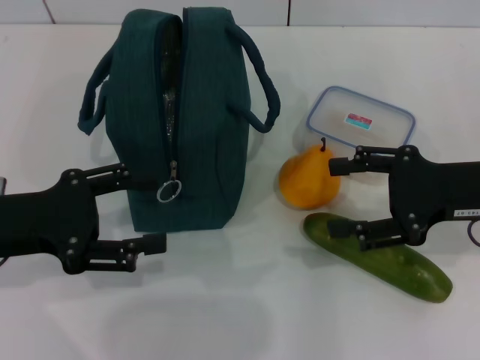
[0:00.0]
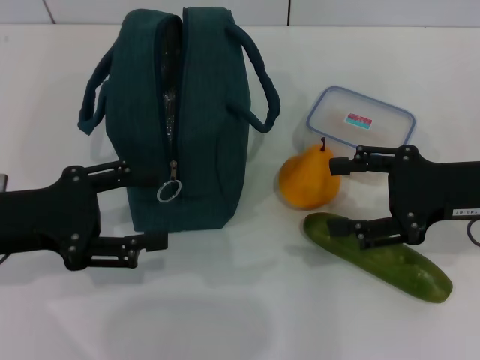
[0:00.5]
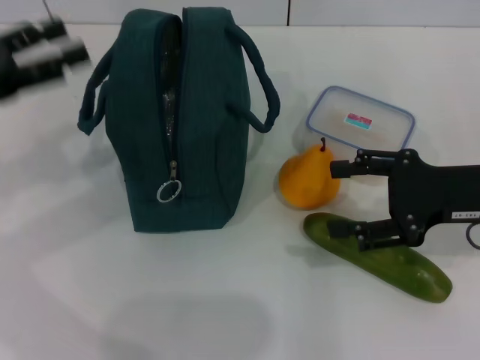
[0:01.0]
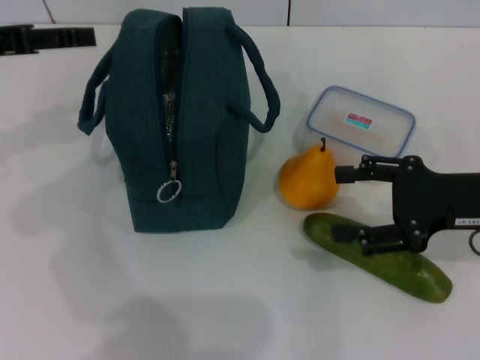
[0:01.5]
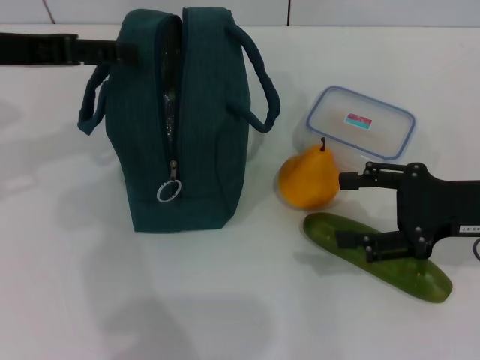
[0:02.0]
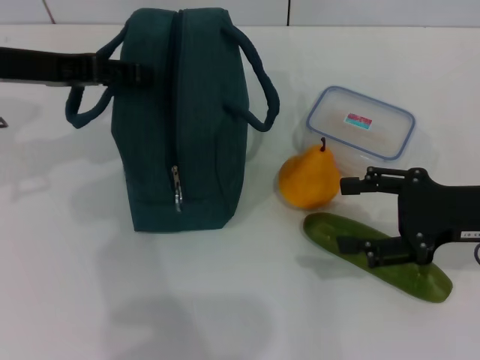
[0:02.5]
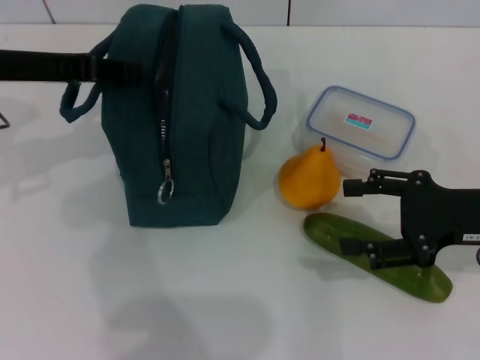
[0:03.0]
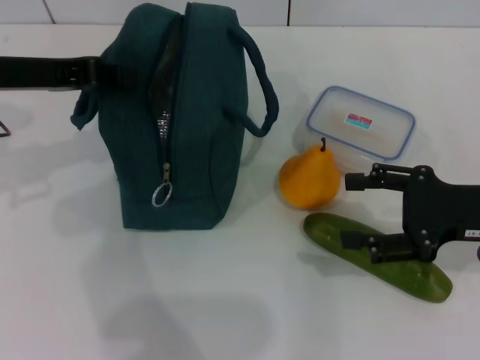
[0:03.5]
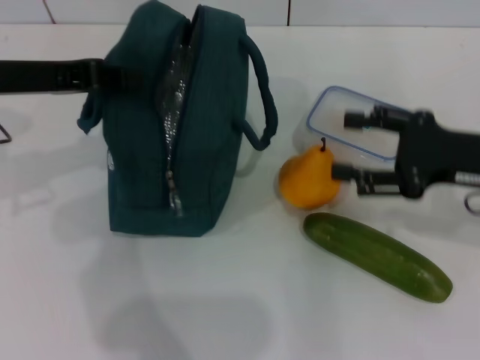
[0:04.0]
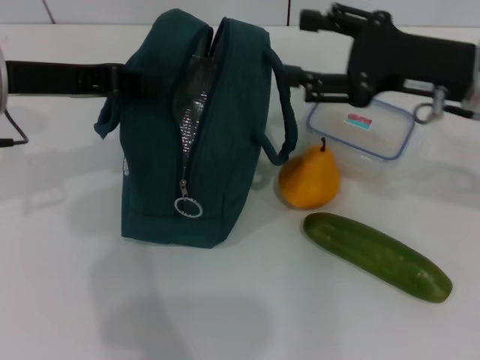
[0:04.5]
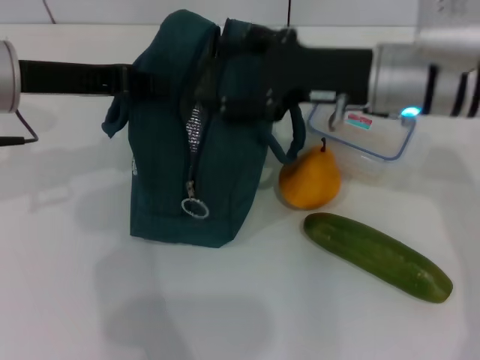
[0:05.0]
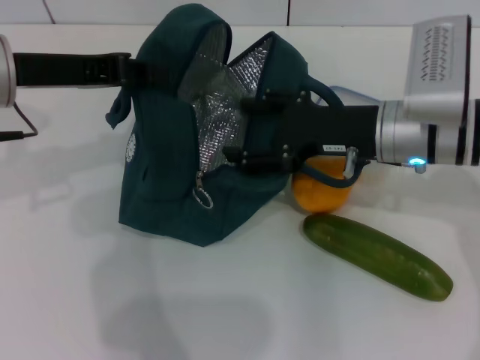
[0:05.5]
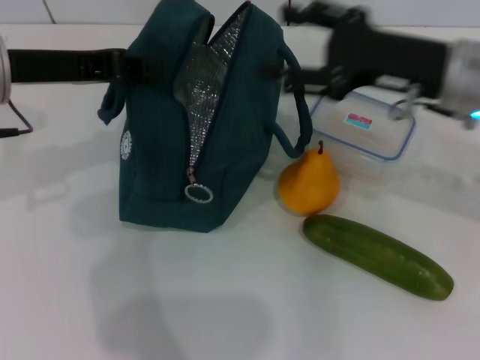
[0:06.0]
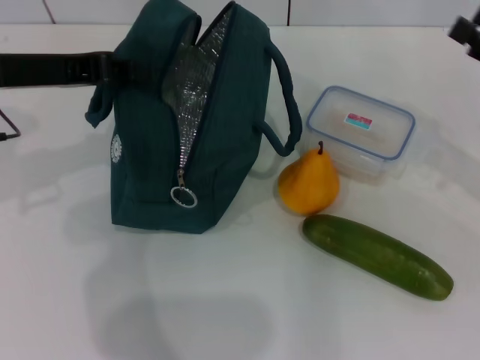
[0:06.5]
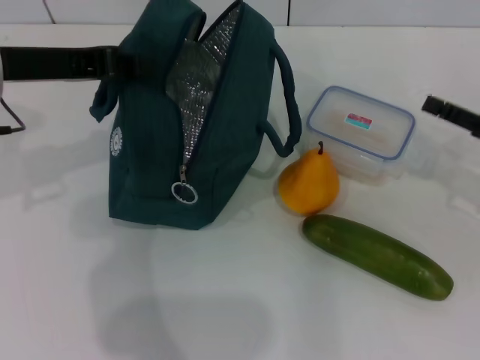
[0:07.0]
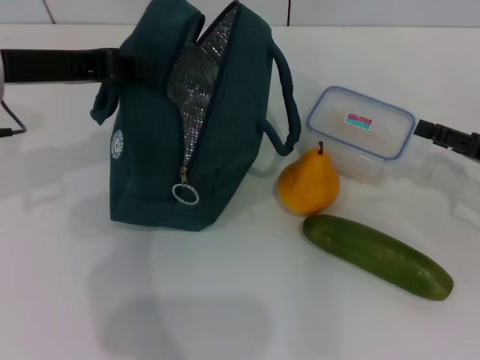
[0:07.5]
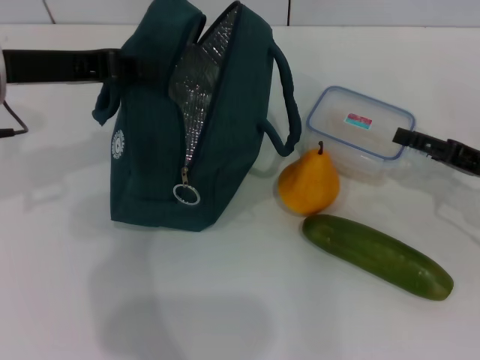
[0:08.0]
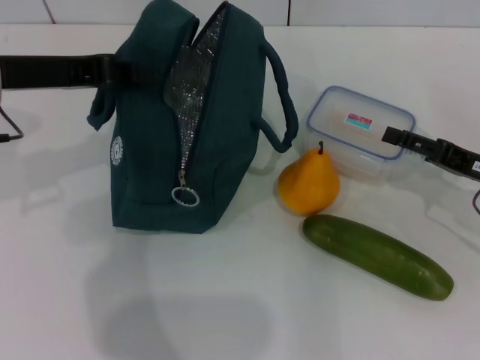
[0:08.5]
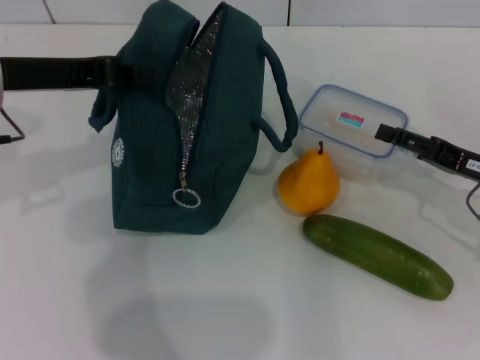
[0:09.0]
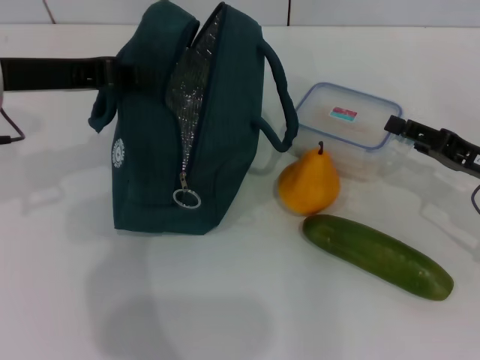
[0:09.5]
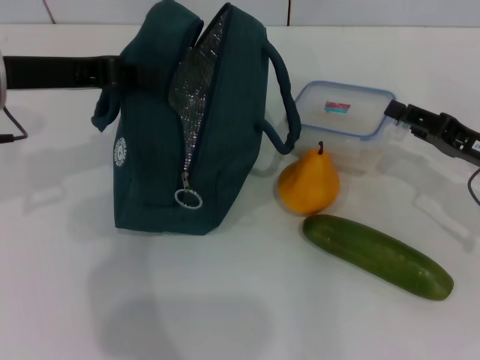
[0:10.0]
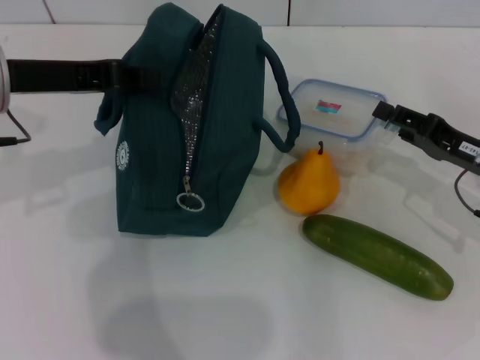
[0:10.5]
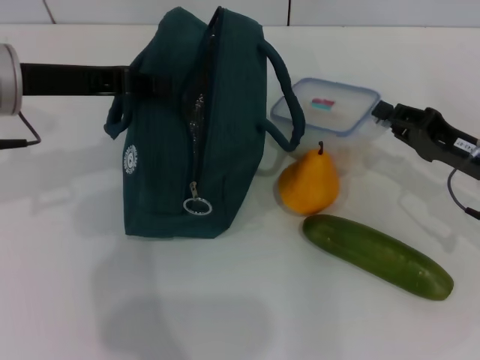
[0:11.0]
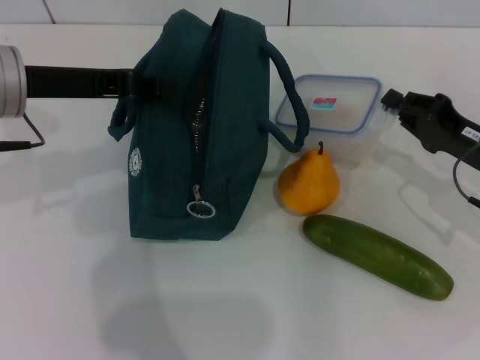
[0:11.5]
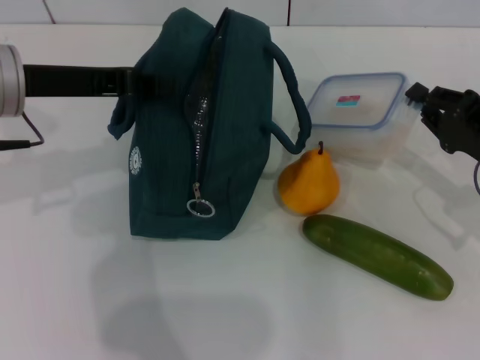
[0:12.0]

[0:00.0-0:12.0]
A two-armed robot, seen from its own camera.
Step, 0.0 to 6.5 s: Hold the lunch bag with your left hand.
Step, 7.0 to 11.0 s: Pick up the lunch box with your right hand.
0.0 to 2.0 s: The left gripper travels forward and upward by approximately 15 cm.
2.0 to 4.0 s: The left gripper closes up.
4.0 to 6.0 s: The right gripper shifts approximately 5 cm to the left.
6.0 to 8.0 s: The right gripper is displaced to the right and downward by about 15 cm.
8.0 to 10.0 s: The right gripper closes its fingers.
10.0 to 12.0 s: The right gripper closes.

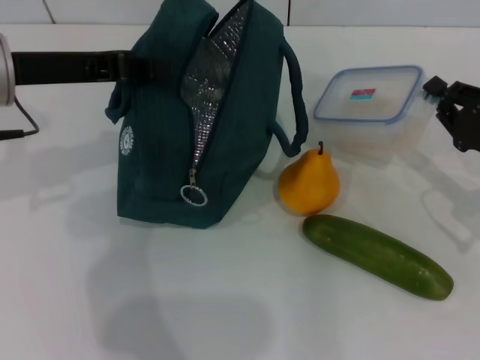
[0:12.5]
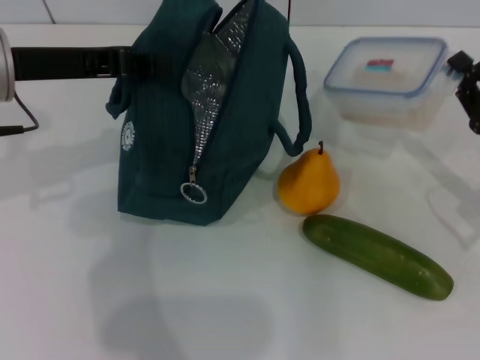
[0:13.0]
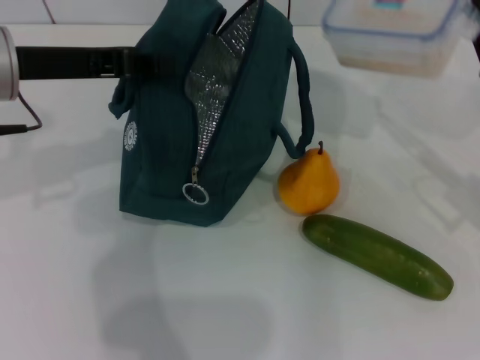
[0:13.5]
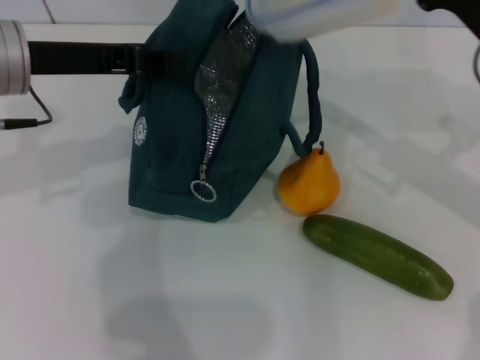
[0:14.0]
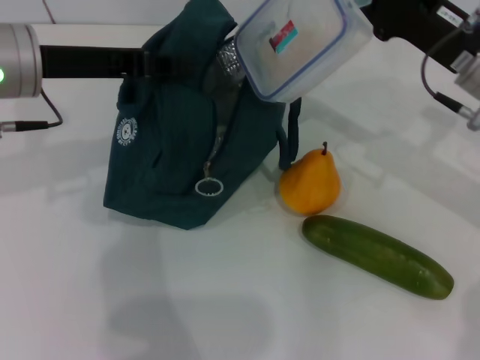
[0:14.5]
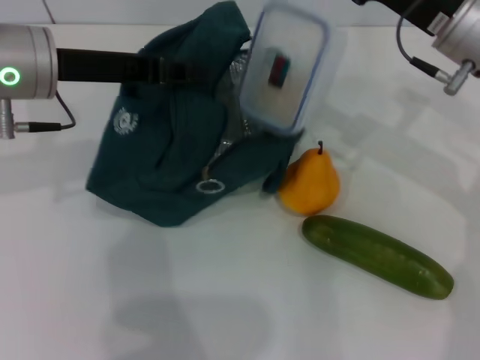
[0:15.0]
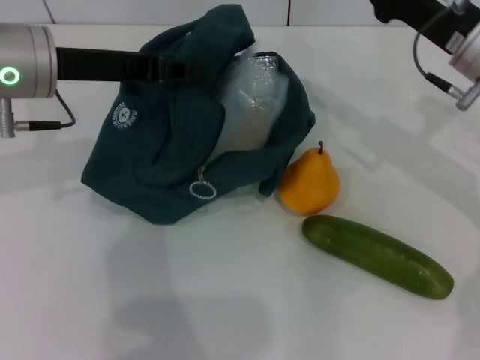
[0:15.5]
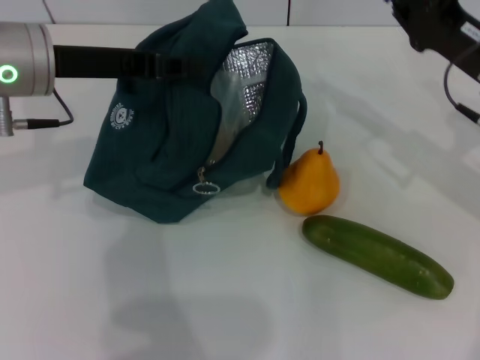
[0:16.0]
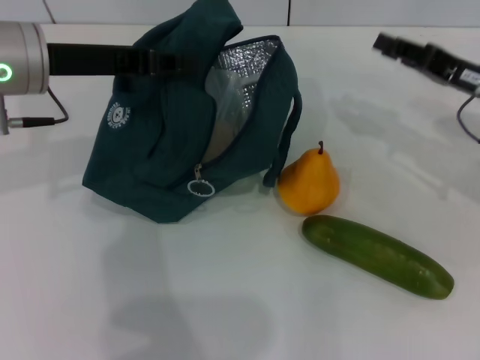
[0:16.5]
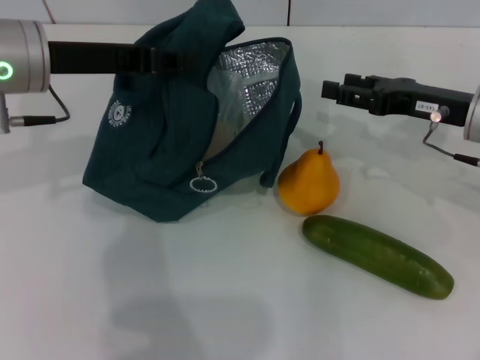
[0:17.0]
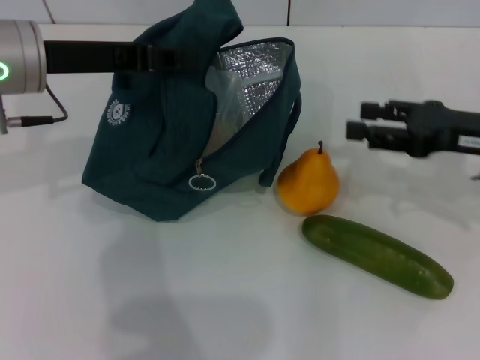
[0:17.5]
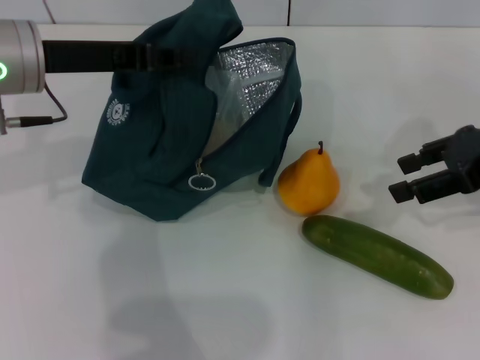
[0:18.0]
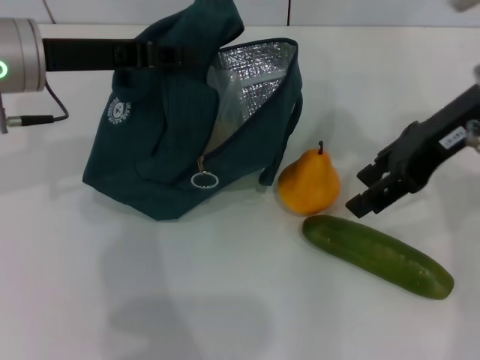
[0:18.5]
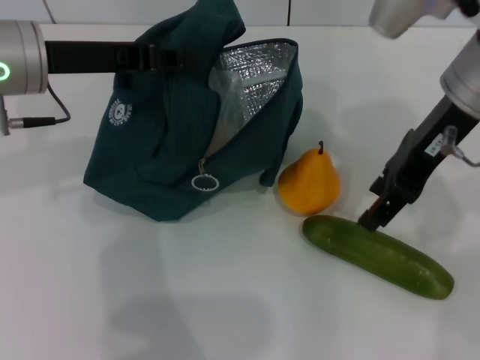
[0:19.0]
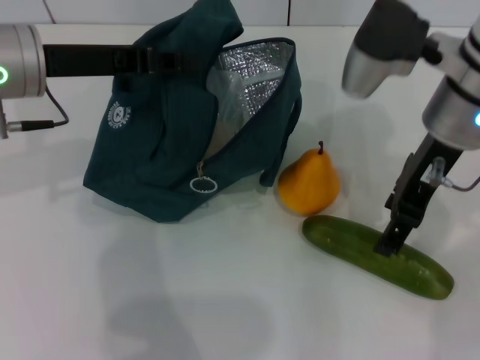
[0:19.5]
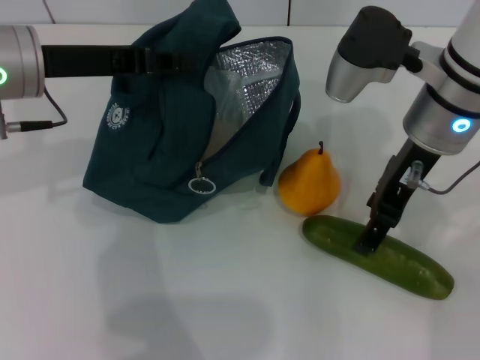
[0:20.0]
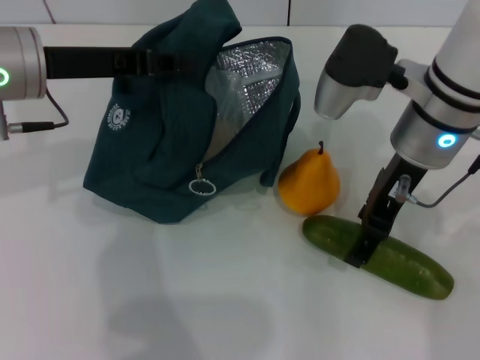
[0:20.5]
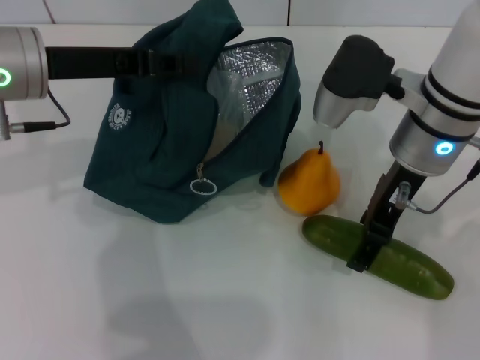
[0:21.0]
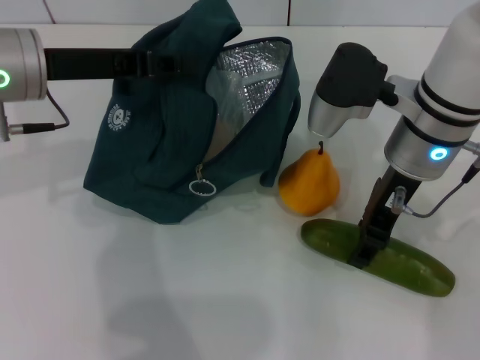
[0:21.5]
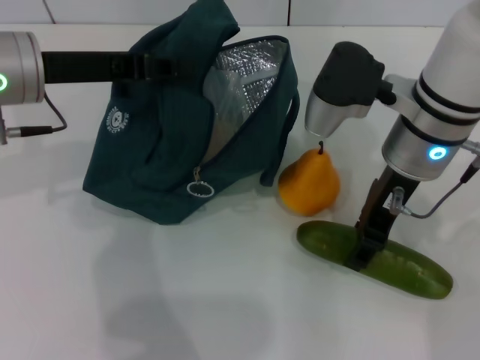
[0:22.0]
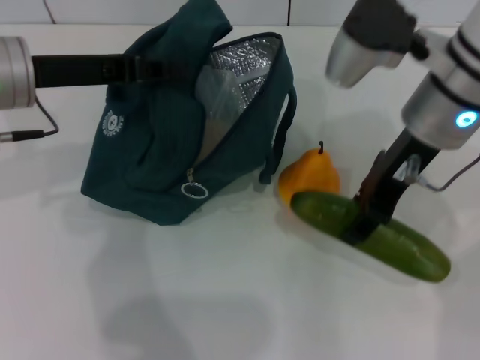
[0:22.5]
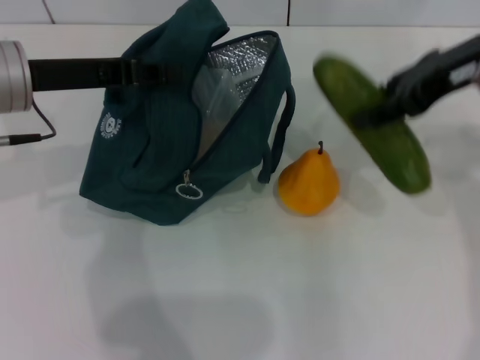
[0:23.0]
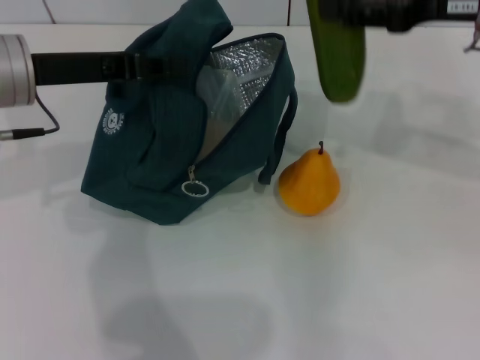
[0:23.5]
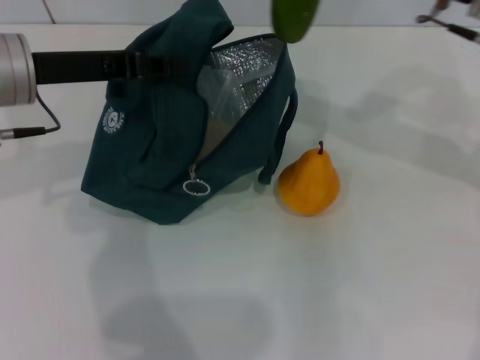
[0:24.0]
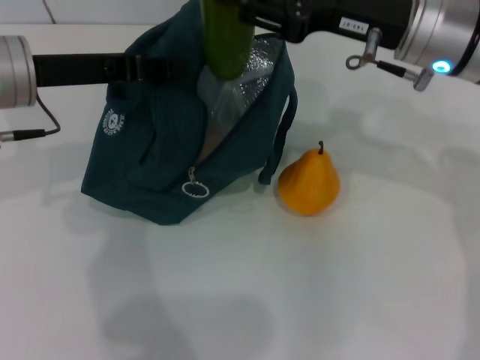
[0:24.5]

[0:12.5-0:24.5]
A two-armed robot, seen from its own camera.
Step, 12.5 to 16.0 s: Place the lunch box into the lunch bag with your right hand.
Step, 16.5 to 21.5 s: Pick up the cucumber with your right hand.
12.5 to 14.5 s: The right gripper goes about 15 cm to the left, upward and forward.
14.5 to 16.5 s: The right gripper goes some 5 cm to the right.
16.5 to 18.5 s: The right gripper heads upward and to the left, covering some 15 cm, and opens its fingers.
18.5 to 20.5 s: The right gripper travels to the left and downward by about 10 cm.
20.5 to 22.5 s: The right gripper closes its fingers.
22.5 to 24.5 s: The right gripper moves approximately 10 cm to the right and comes back.

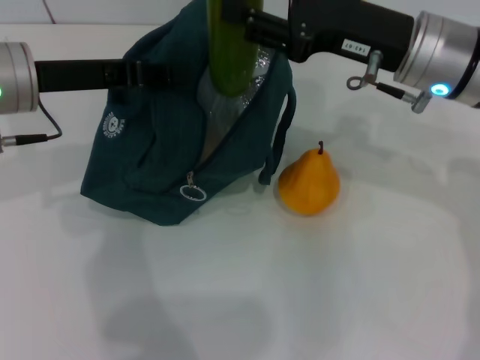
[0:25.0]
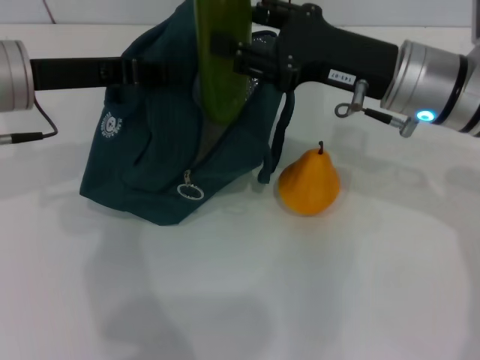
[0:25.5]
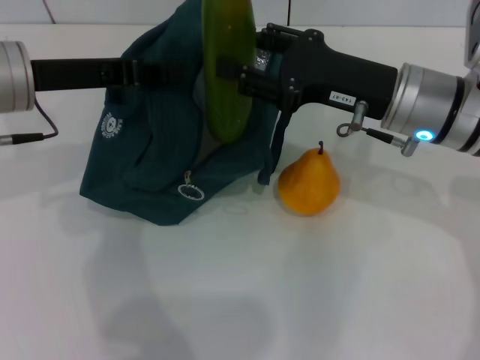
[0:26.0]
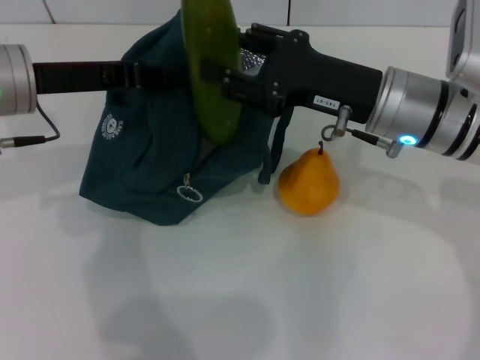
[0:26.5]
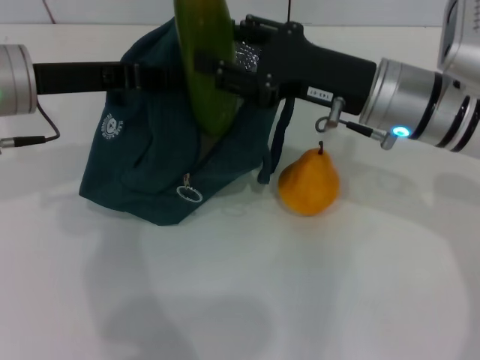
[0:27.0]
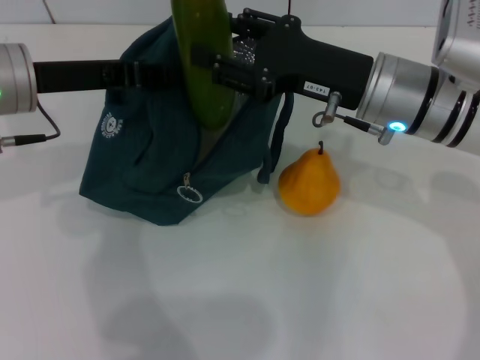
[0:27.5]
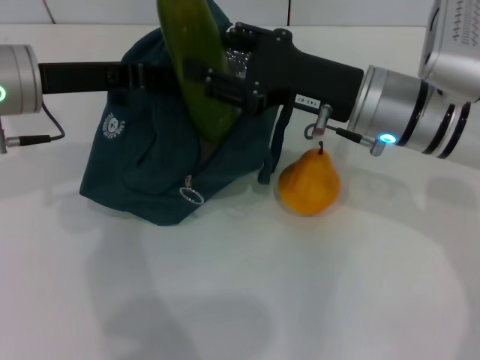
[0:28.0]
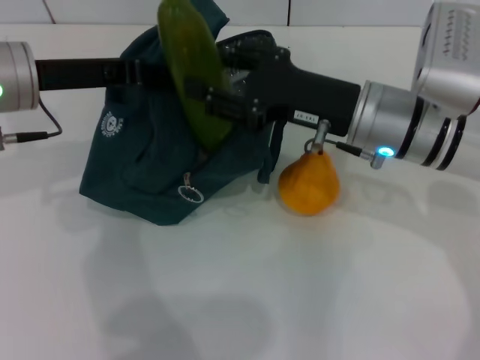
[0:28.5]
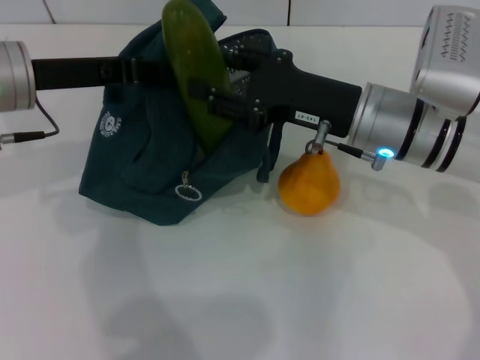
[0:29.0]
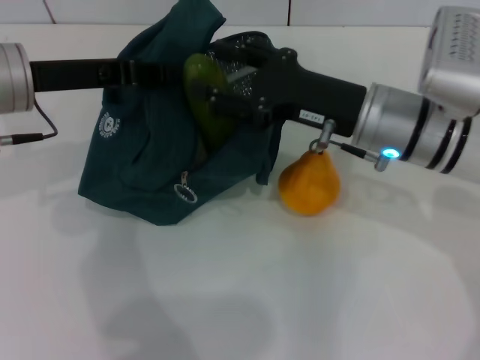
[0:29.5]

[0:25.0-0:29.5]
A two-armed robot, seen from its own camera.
25.0 to 27.0 s: The grippers move only a little.
27.0 to 29.5 s: The grippers stay close to where they were, moving slightly.
